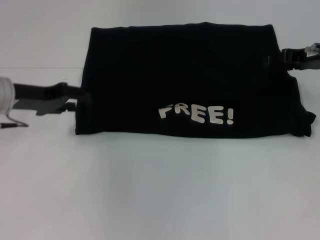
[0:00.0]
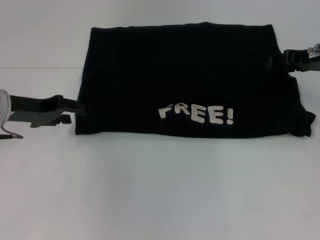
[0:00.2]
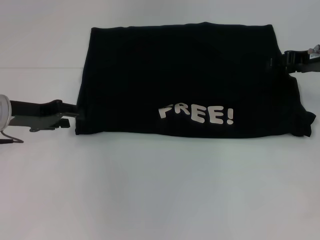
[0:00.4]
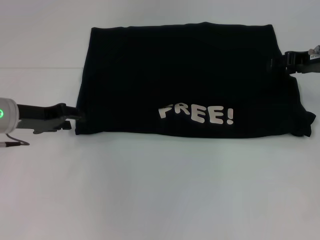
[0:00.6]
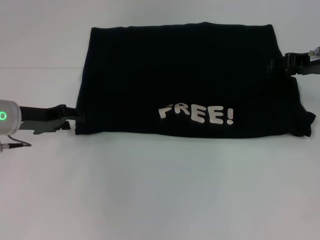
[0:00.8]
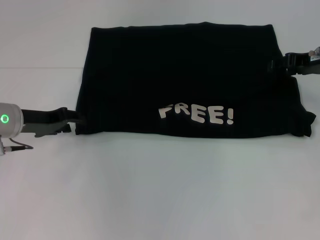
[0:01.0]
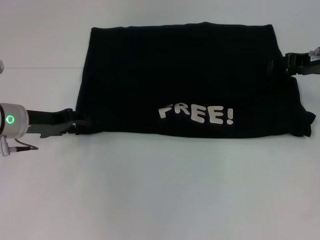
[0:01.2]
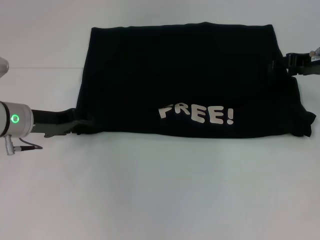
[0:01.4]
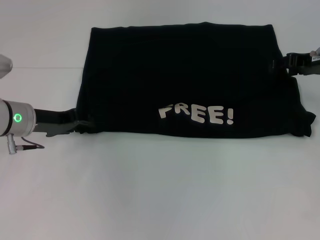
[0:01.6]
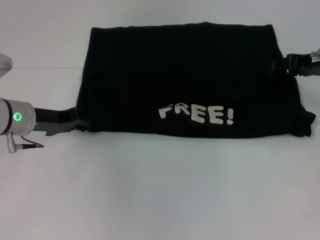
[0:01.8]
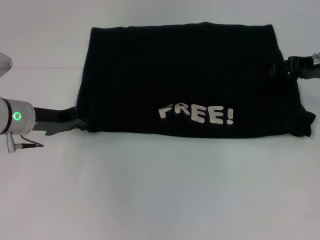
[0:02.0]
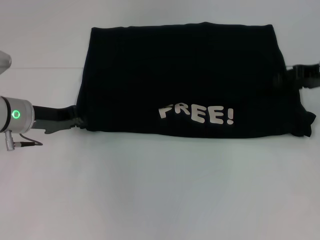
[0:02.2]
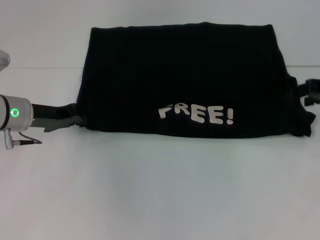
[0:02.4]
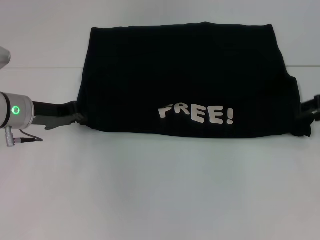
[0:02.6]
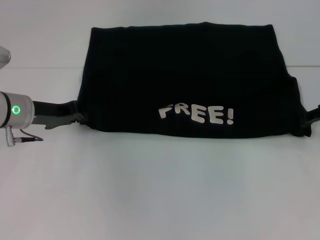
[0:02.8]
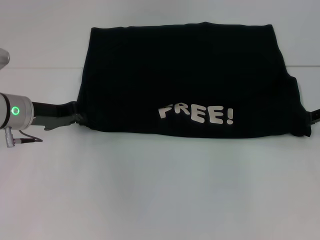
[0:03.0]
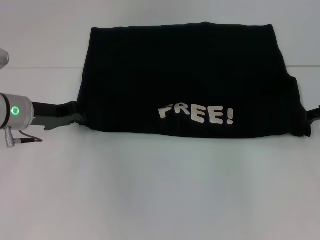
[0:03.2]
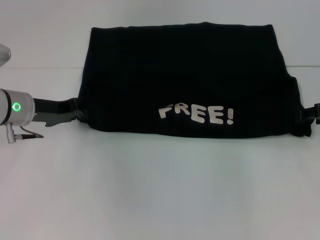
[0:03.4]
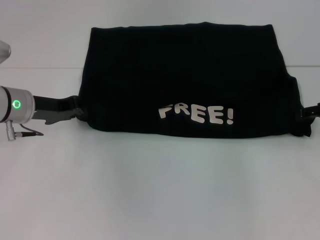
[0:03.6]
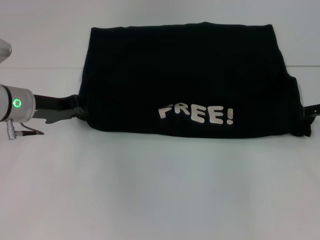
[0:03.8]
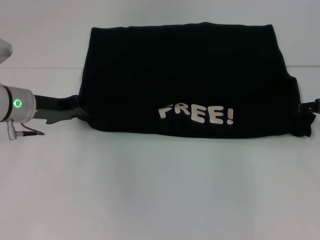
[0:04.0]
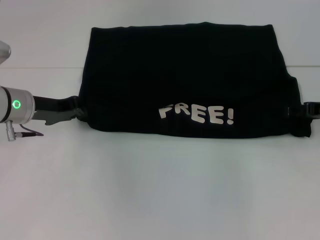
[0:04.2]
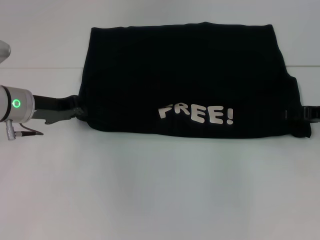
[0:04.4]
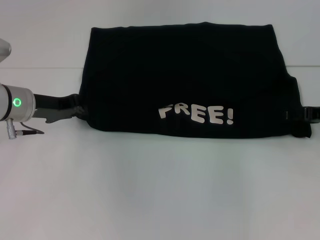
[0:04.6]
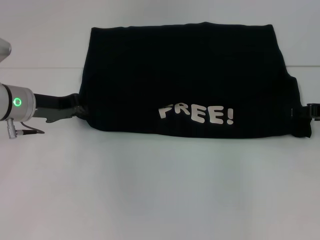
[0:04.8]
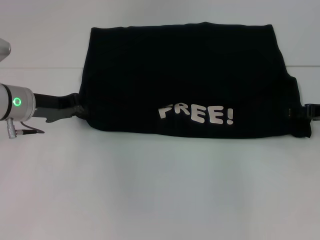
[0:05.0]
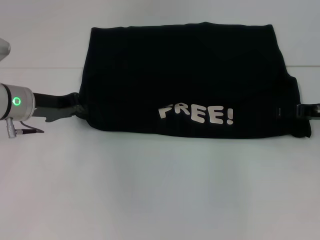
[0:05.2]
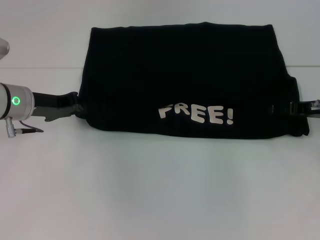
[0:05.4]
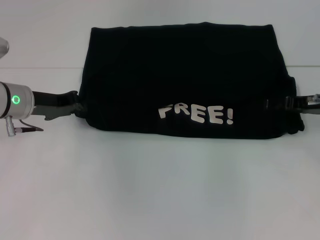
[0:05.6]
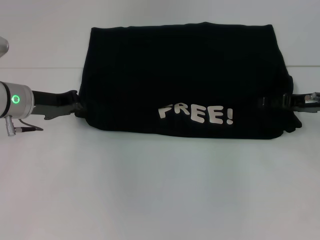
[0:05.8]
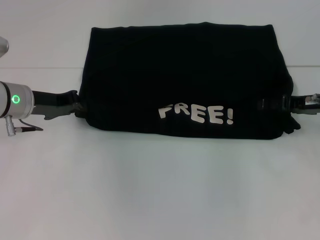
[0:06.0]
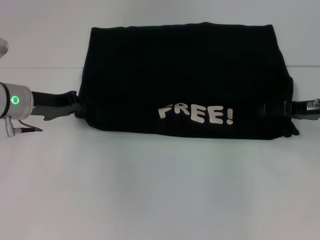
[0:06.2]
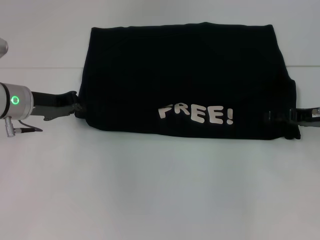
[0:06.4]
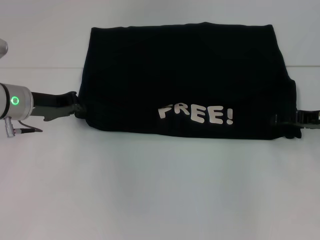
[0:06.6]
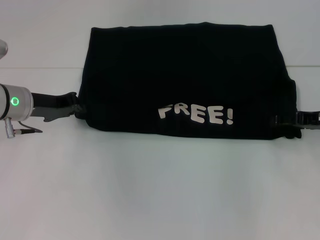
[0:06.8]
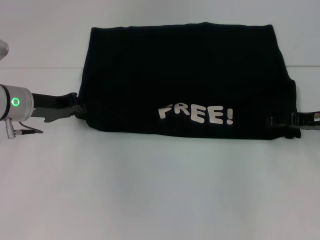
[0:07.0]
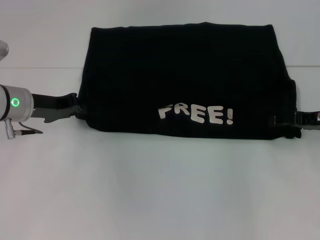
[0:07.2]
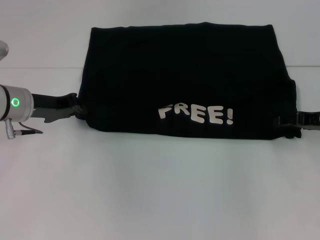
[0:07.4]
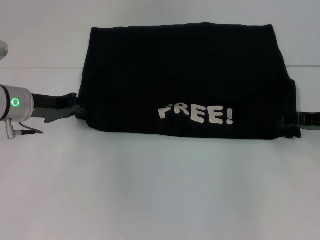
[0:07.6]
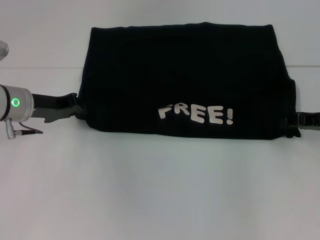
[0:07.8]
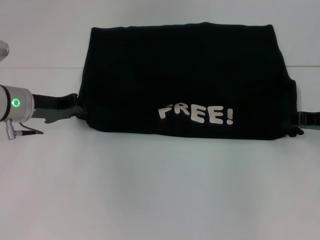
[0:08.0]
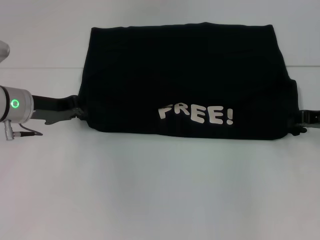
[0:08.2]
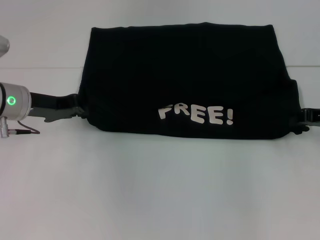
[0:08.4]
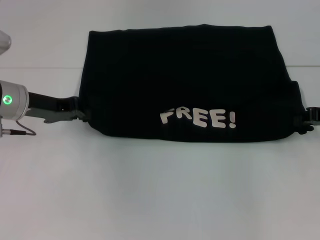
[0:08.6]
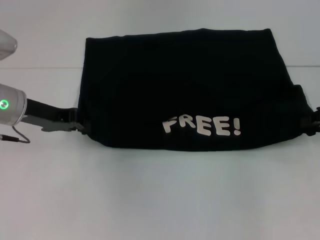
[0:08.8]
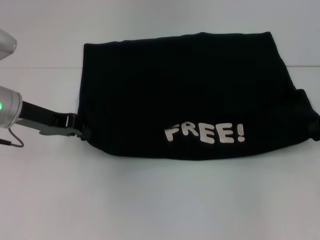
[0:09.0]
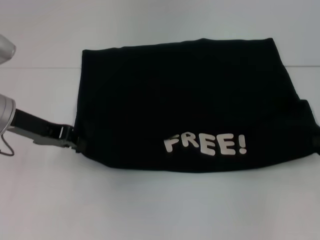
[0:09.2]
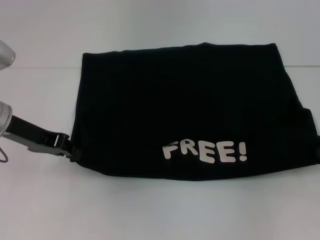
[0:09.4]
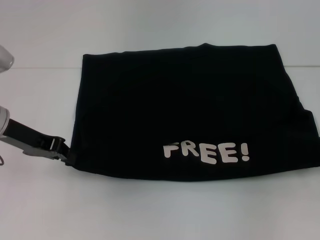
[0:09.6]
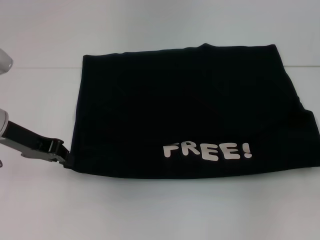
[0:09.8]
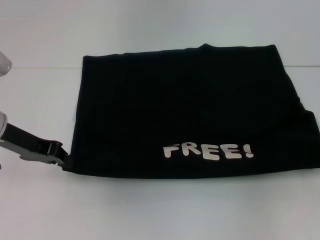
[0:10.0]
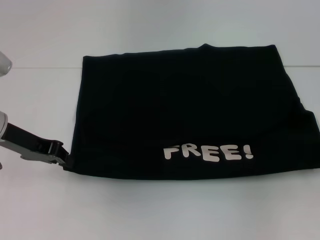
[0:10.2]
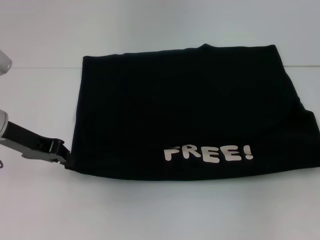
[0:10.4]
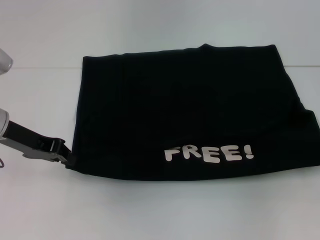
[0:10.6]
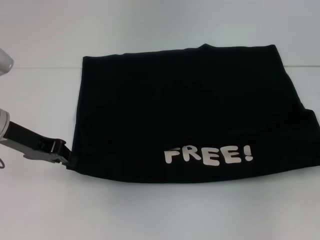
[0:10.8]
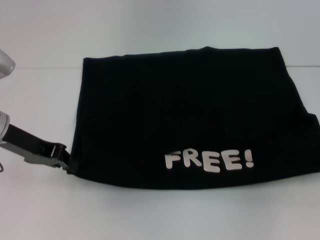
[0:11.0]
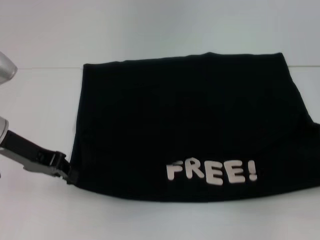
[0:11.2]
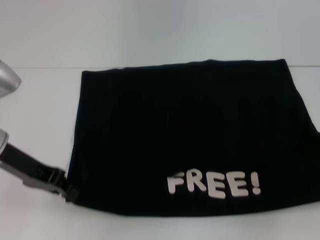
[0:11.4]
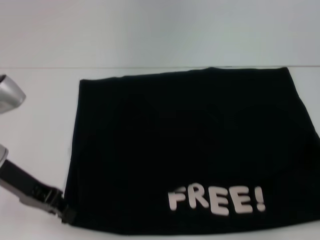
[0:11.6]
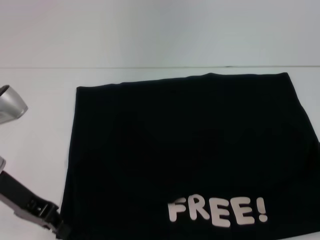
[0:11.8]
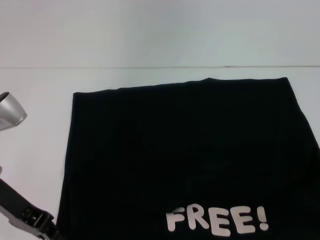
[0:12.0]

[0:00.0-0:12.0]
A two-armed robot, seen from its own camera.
Step, 0:00.0 to 0:12.0: Pull the clothes with your left hand.
Step, 0:00.0 to 0:12.0: Pull the clothes with your right hand.
0:00.0 to 0:01.6: The left gripper is displaced downward by some 5 cm.
0:01.6 to 0:03.0: The right gripper shifts roughly 5 cm to the right. The left gripper closes.
0:03.0 to 0:04.4: The grippers stay close to where they were, moving slightly.
0:04.4 to 0:07.6: The grippers stay close to where they were, moving slightly.
0:07.6 to 0:09.0: The right gripper shifts by about 5 cm, and closes.
0:10.4 to 0:12.0: The left gripper heads backward, covering about 5 cm. Meanwhile the right gripper changes place by approximately 5 cm.

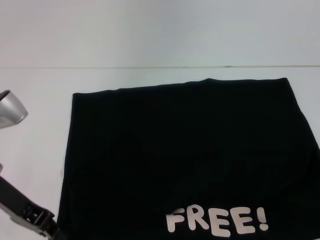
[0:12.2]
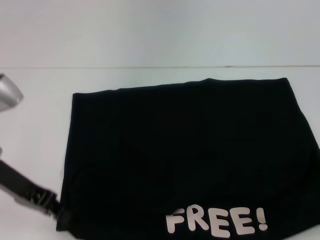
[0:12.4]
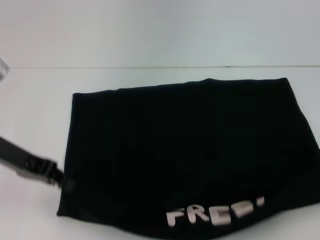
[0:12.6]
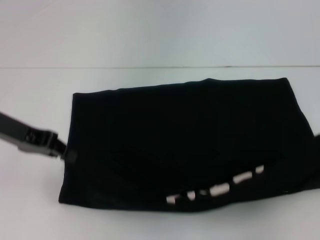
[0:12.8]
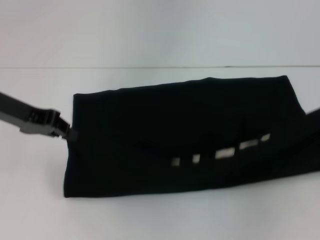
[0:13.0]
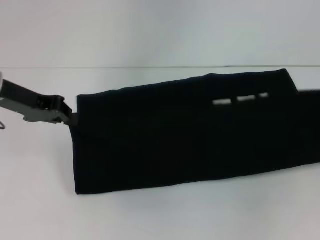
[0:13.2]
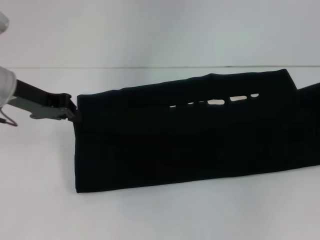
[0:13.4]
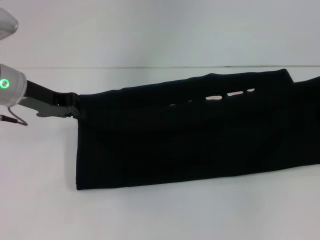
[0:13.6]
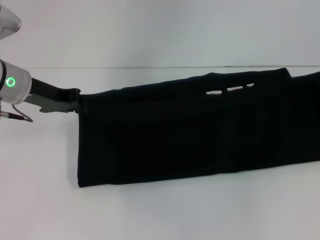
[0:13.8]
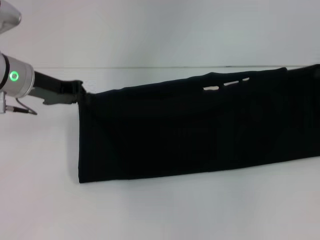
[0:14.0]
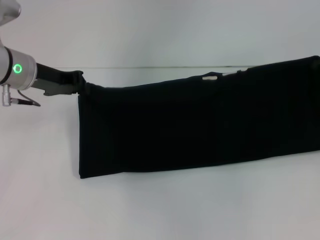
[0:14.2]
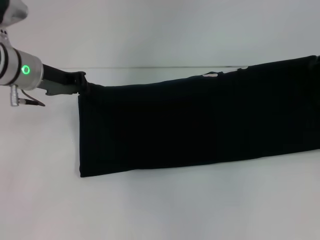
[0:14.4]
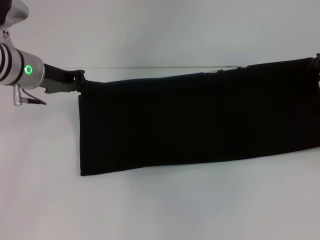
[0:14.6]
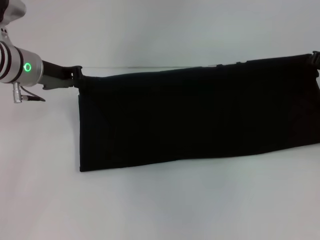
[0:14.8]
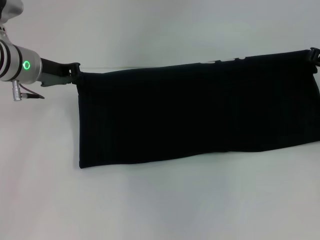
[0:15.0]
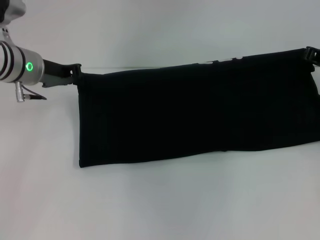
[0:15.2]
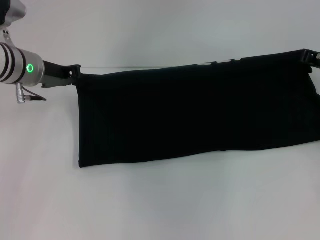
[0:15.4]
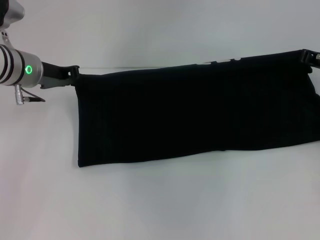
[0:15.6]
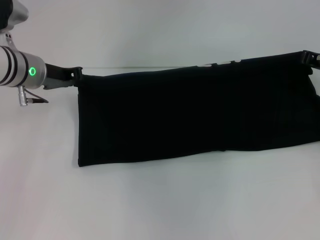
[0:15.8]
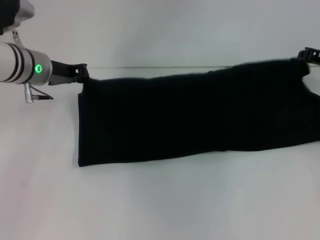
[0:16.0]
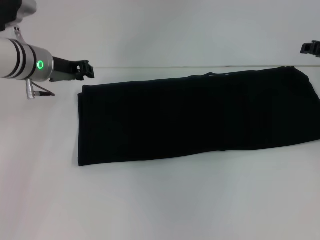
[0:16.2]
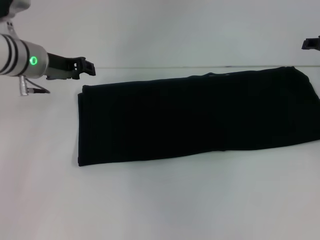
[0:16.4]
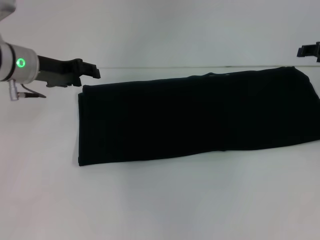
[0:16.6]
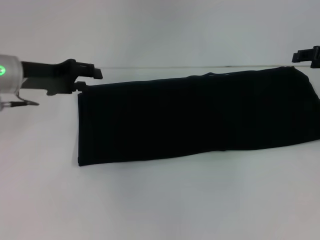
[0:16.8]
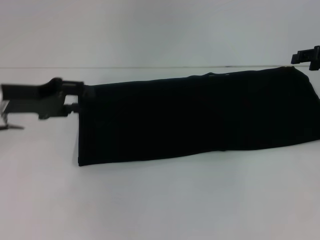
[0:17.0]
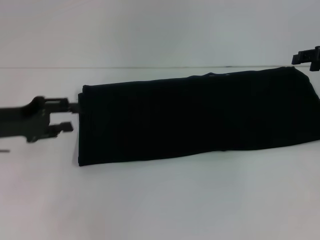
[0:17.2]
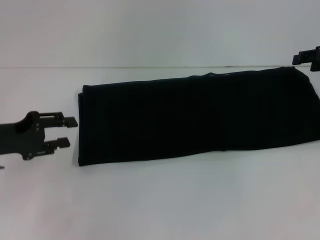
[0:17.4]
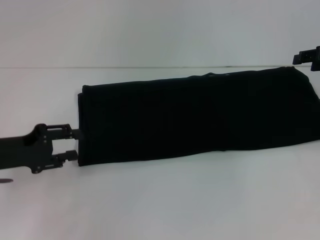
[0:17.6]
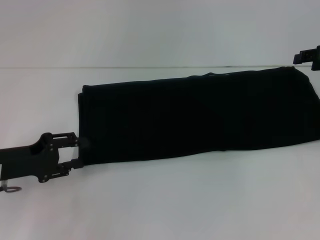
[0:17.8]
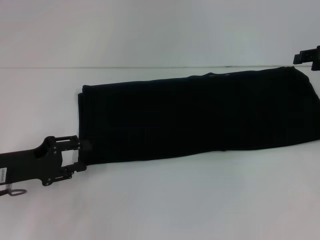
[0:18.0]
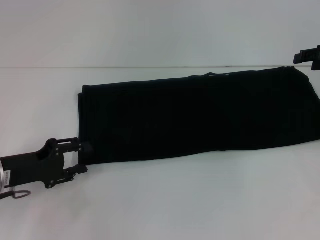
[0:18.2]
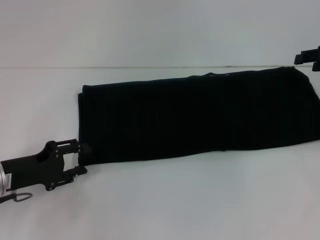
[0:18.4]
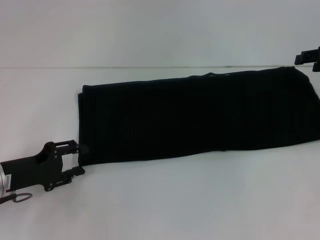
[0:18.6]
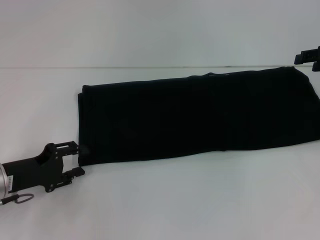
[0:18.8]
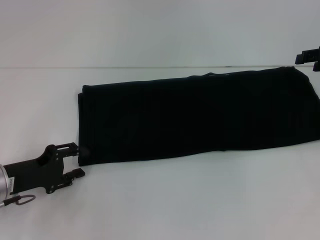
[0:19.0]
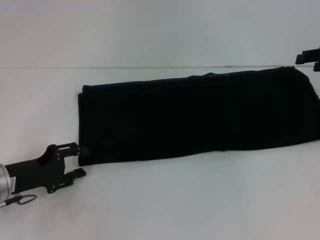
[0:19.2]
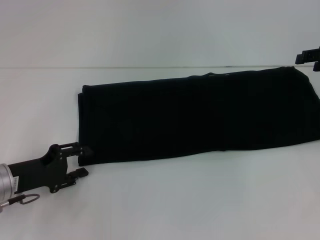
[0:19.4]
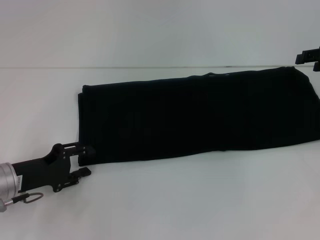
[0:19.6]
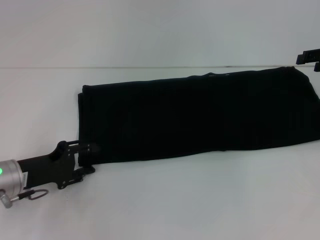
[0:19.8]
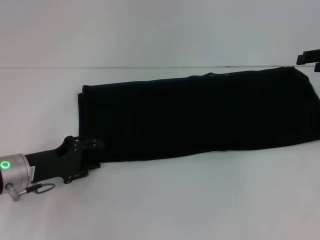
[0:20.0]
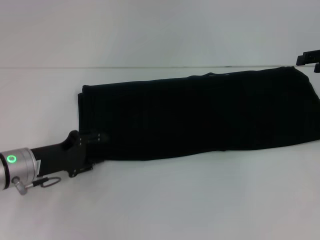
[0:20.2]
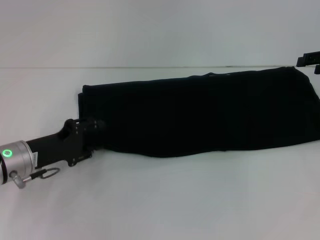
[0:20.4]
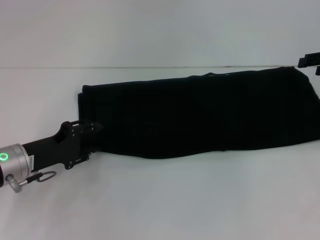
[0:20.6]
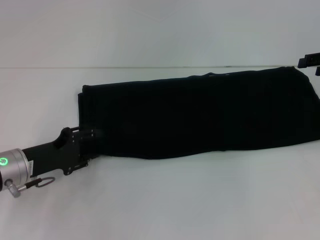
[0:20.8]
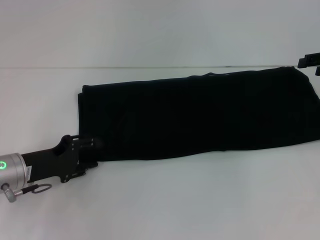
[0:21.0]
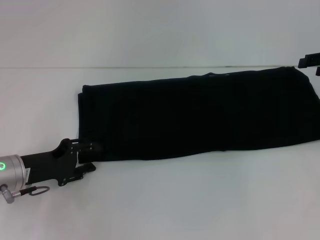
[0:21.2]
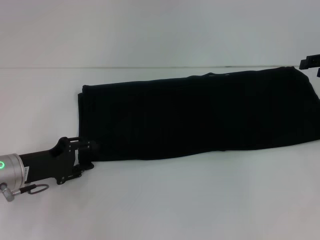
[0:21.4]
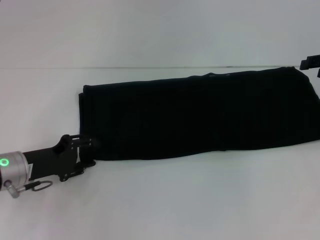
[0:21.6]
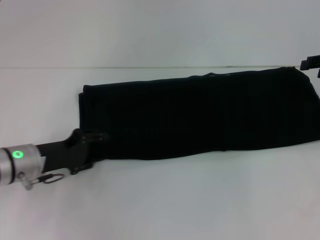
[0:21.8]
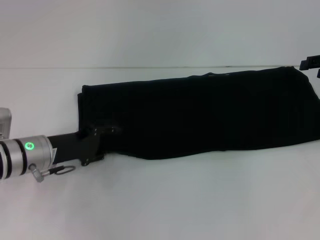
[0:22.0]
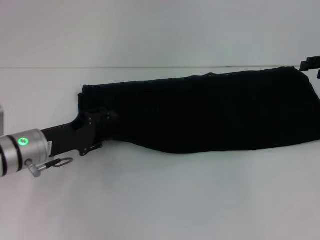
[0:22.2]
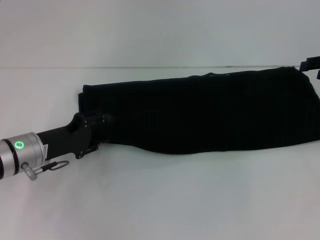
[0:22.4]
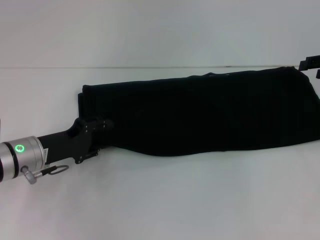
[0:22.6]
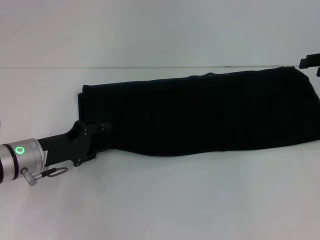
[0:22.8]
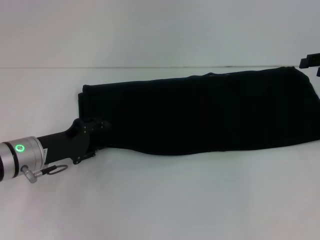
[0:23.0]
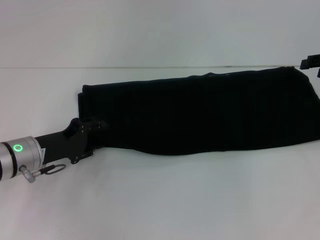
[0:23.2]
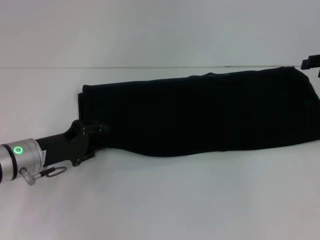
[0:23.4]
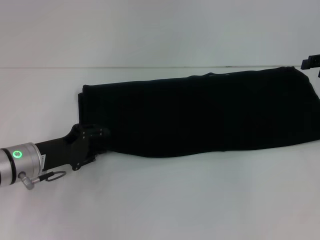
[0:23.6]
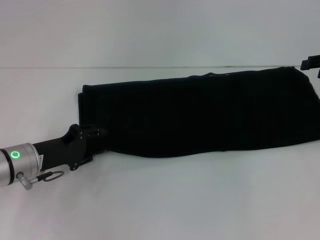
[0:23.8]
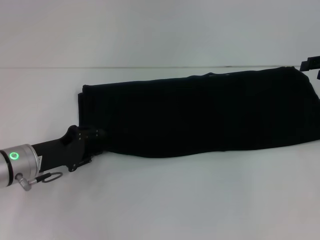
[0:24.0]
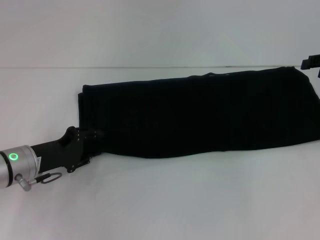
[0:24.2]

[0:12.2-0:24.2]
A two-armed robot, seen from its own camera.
Step, 0:12.2 to 0:16.8: Fold the clothes with your right hand.
0:12.2 to 0:13.8: Both grippers travel together forward, roughly 10 cm.
0:13.8 to 0:15.2: The right gripper moves to the left and forward, about 10 cm.
0:15.2 to 0:16.6: The right gripper opens up; the left gripper opens.
0:16.6 to 0:18.2: The left gripper goes roughly 15 cm backward and downward.
0:18.2 to 0:21.2: There are only small adjustments of the grippers.
0:21.2 to 0:24.2: There are only small adjustments of the grippers.
